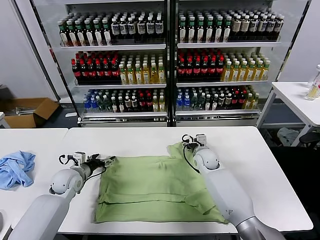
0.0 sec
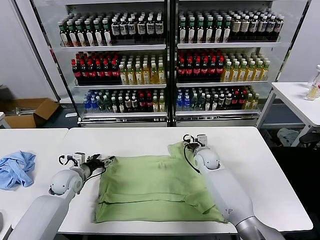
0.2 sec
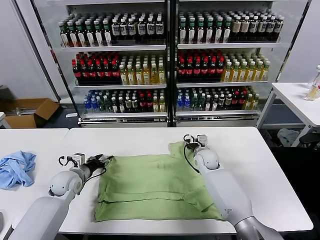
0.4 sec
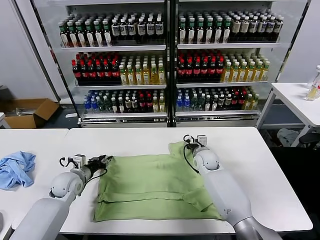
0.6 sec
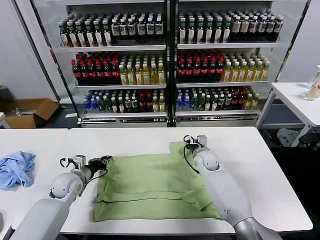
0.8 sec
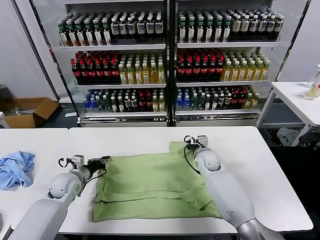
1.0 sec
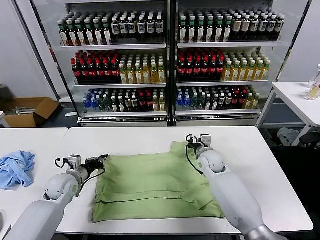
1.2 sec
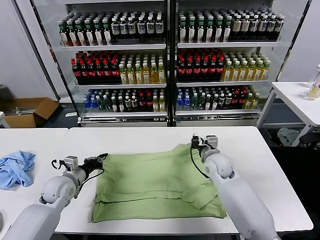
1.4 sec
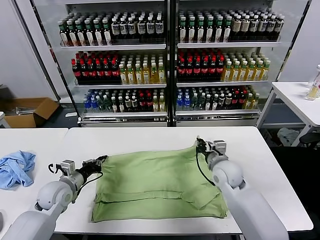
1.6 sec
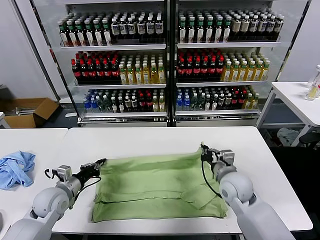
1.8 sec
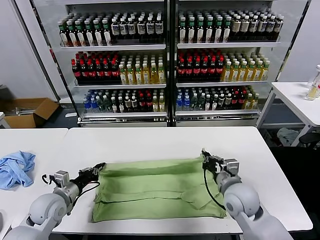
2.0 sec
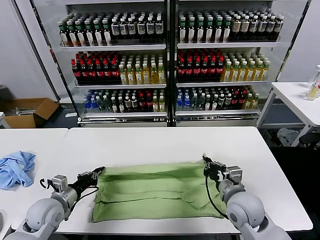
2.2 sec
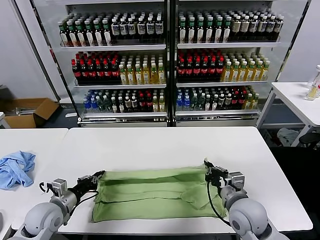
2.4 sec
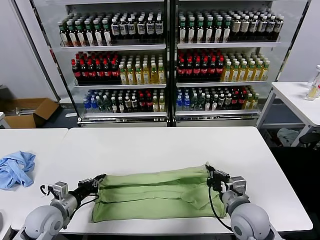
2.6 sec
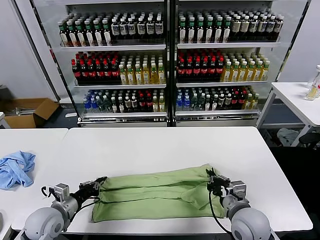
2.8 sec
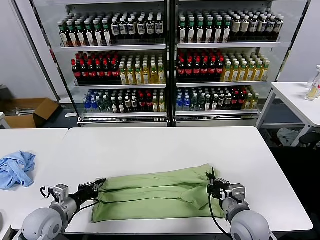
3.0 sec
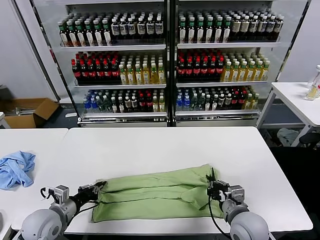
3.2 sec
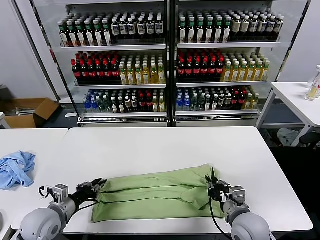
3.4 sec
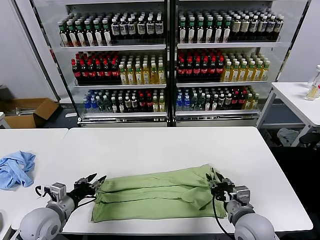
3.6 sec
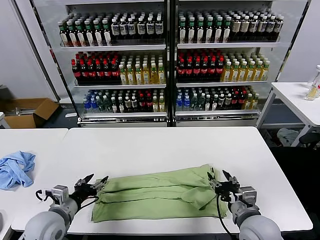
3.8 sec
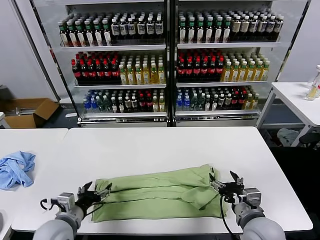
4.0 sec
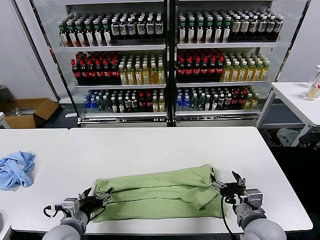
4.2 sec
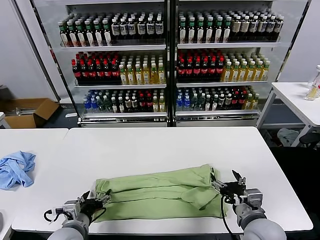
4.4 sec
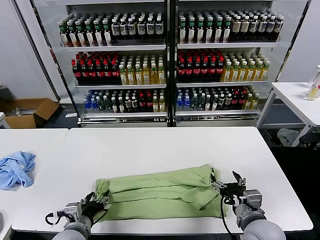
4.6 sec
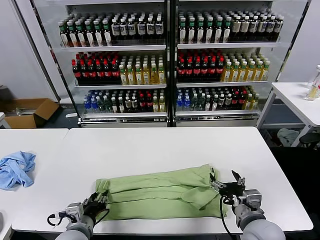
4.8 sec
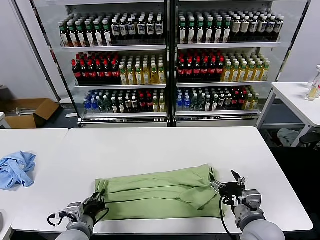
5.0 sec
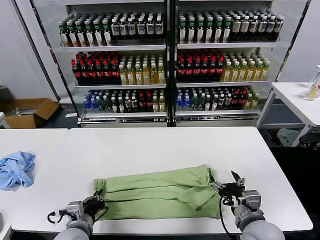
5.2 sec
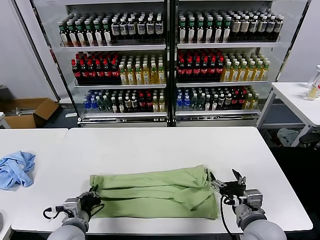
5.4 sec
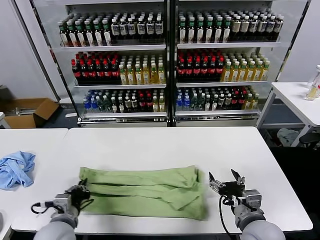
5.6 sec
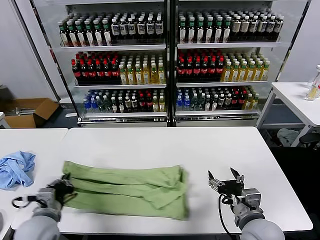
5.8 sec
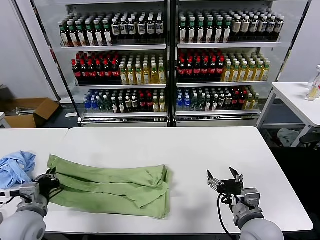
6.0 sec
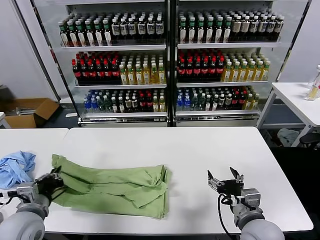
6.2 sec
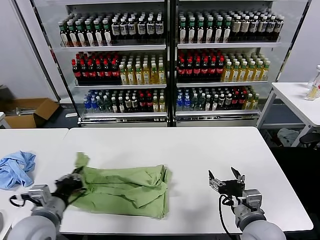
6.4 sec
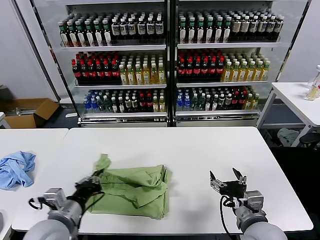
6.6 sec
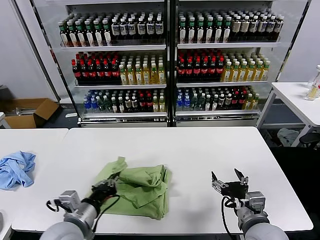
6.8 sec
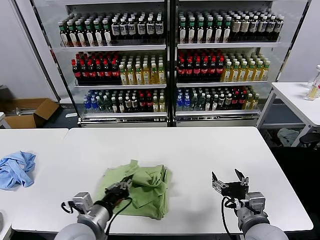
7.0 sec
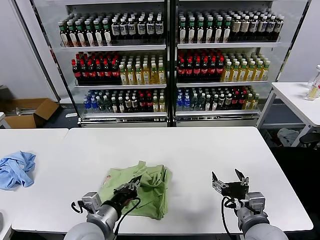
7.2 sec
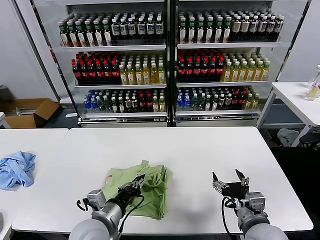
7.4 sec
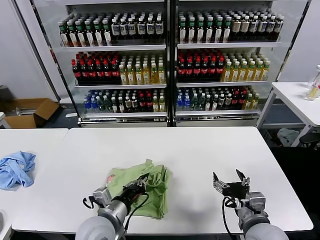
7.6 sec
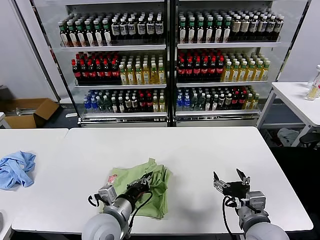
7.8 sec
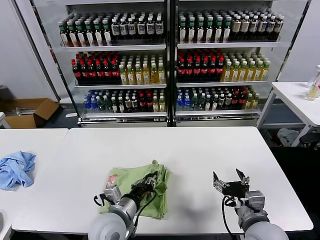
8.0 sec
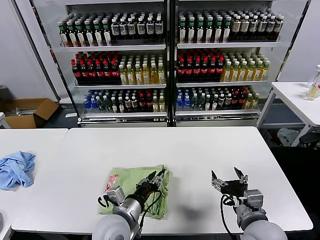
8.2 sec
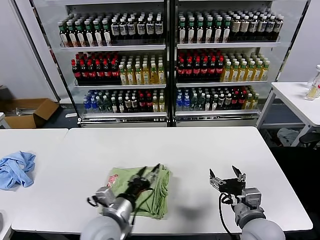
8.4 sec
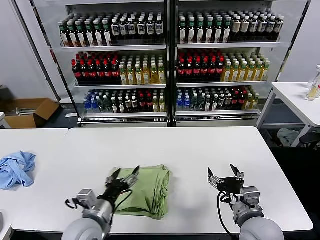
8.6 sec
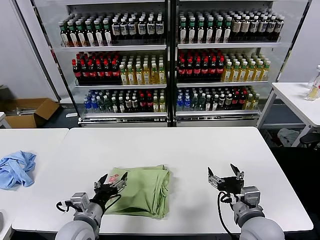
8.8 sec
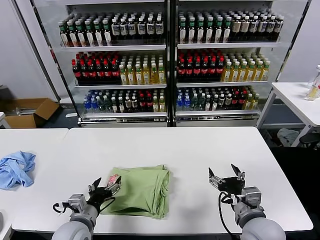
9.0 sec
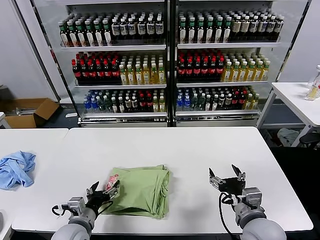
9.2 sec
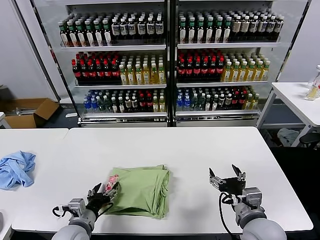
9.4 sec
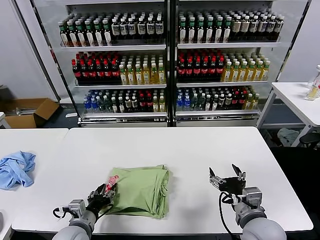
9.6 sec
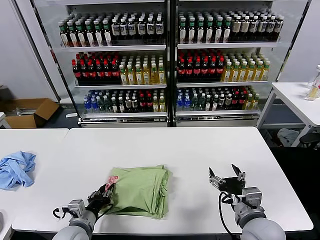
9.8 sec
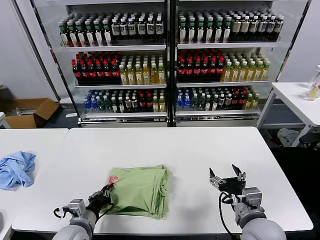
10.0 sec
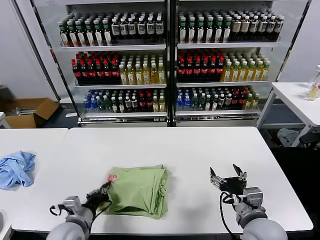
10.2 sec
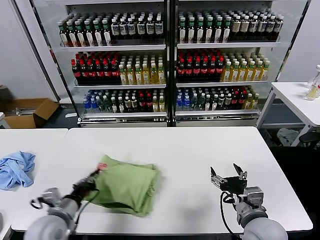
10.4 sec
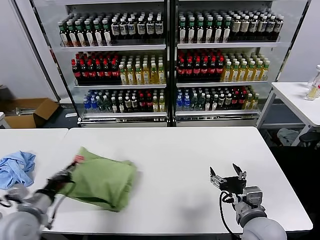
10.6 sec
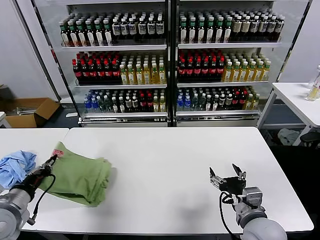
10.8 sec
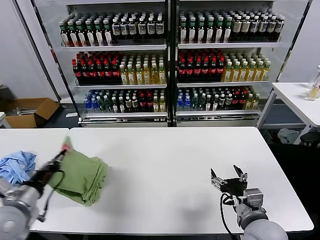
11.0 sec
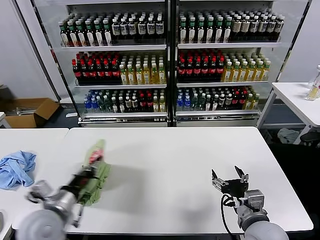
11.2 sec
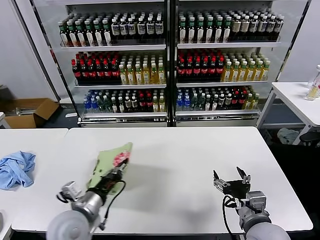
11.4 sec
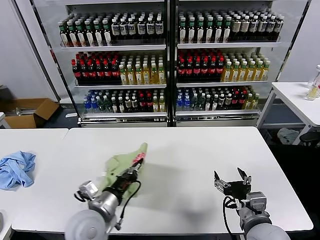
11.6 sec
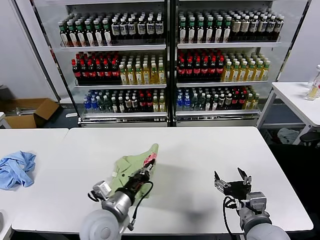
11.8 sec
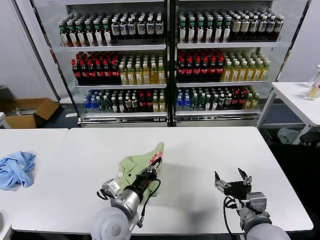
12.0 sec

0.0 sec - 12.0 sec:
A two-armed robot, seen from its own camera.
Task of the whole recording: fold and organize the clothes.
Step, 1.2 sec - 3.6 sec: use both grippers to drag the upper edge of the fabric backward and fold it over the lower edge.
Step, 3.8 sec - 5.0 sec: use the left gripper to clamp the left edge of the fabric.
Step, 5.4 sec - 8.2 sec: use the left gripper to drag the left edge of the fabric to the left and folds it over the right edge.
0.0 sec - 1.6 sec: The right gripper heads backward and upward, covering approximately 15 cm, and closes; the left gripper travels backward by about 5 cm, and closes its fingers.
1.6 sec - 3.0 sec: The right gripper travels backward by some 15 cm. The left gripper moves backward, about 10 cm.
3.0 sec - 4.4 sec: The left gripper heads to the right and backward, covering roughly 10 cm, and opens, while the right gripper opens its fingers.
4.4 sec - 6.0 sec: The left gripper is displaced to the left and upward by about 10 cm, and closes up.
6.0 sec - 7.6 sec: The left gripper goes about 20 cm to the right.
7.6 sec - 9.0 sec: The left gripper shifts some 10 cm to the left and downward, and opens up.
9.0 sec - 10.4 sec: The left gripper moves to the left, approximately 5 cm, and closes its fingers.
10.4 sec - 12.0 sec: The left gripper goes some 15 cm to the right.

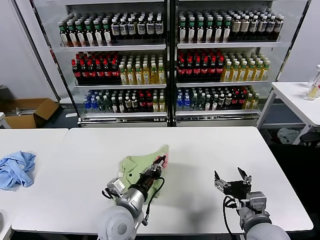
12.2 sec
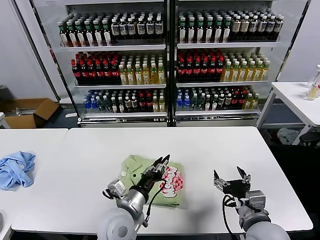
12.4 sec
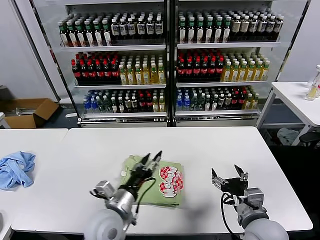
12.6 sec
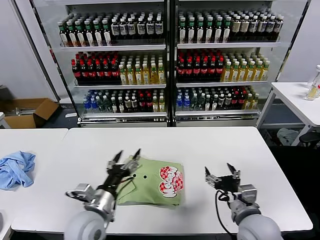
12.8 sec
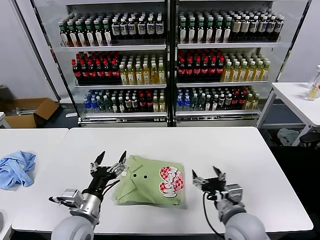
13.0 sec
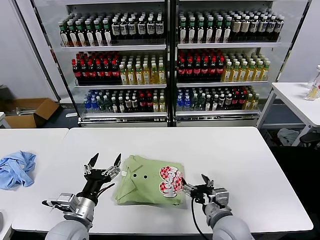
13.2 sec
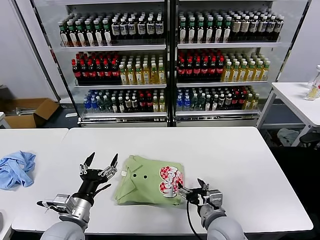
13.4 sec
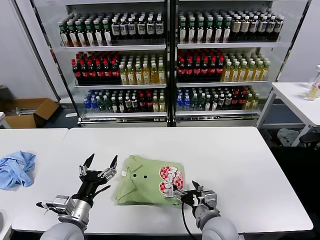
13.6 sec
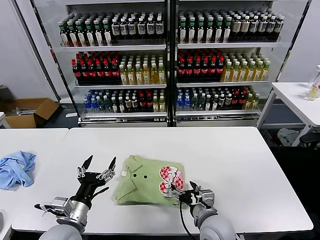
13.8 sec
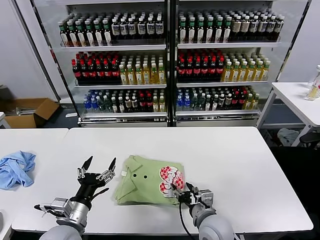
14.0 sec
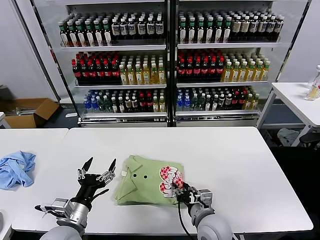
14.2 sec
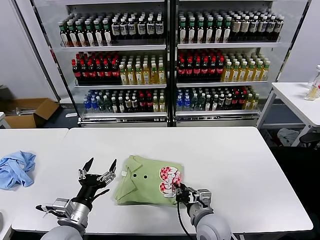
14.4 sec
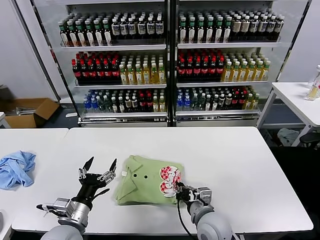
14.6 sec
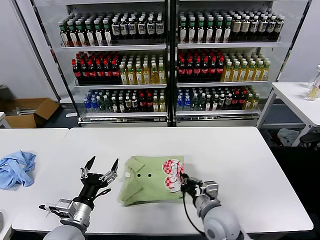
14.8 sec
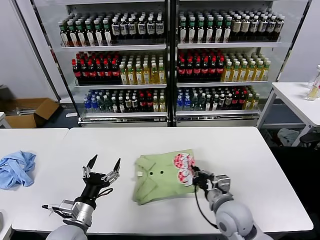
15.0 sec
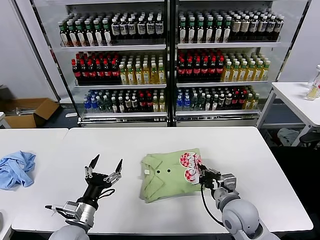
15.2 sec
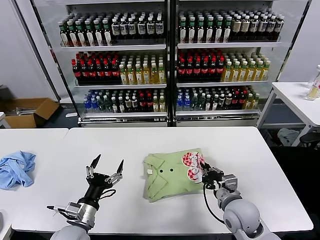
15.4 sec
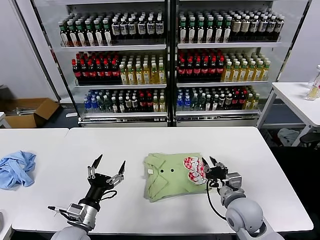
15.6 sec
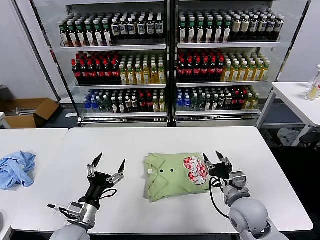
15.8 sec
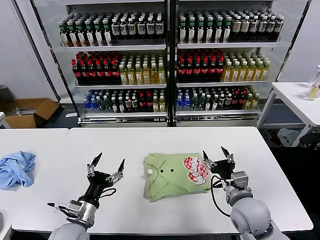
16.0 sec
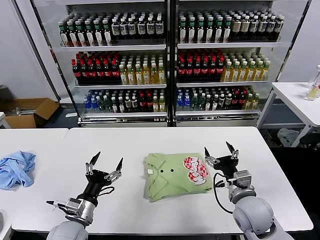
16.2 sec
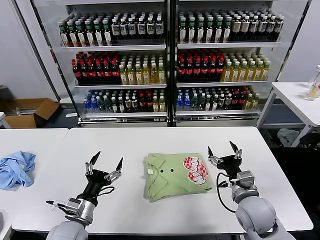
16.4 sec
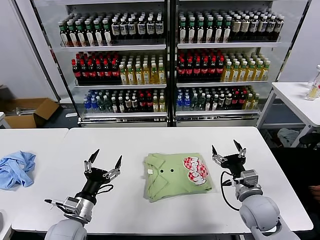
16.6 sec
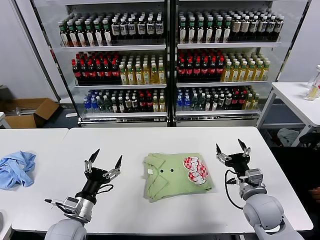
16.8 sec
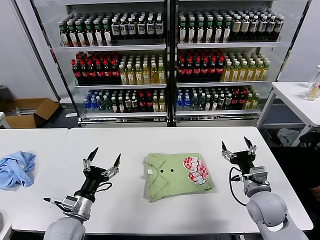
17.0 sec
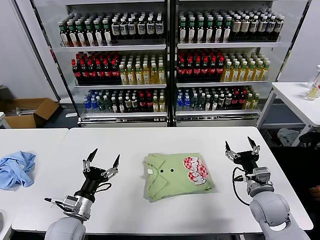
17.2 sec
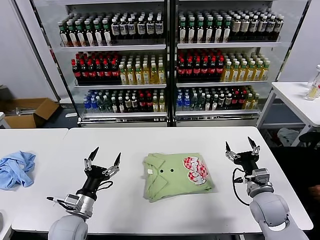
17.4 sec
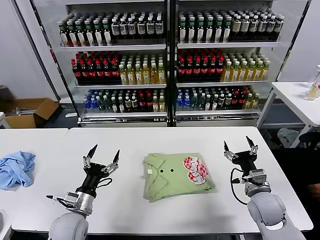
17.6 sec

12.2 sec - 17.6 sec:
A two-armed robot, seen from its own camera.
Task of the whole recording: fold and organize the clothes.
Step, 12.6 sec - 15.6 sec: Drag the clothes to the center of the table.
12.2 sec - 13.6 sec: The right gripper heads to the left and downward, covering roughly 10 cm; the left gripper travels to the left by some 15 cm, and opens.
13.6 sec - 15.0 sec: The right gripper shifts by approximately 5 cm, and closes.
15.0 sec - 16.2 sec: The right gripper goes about 5 cm to the right, and opens its fingers.
16.2 sec - 17.6 sec: The right gripper shifts roughly 5 cm to the right.

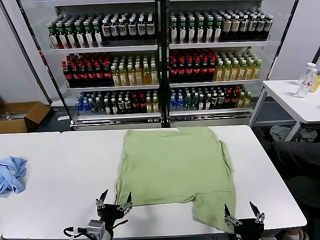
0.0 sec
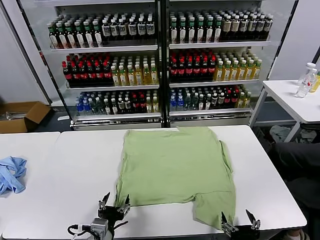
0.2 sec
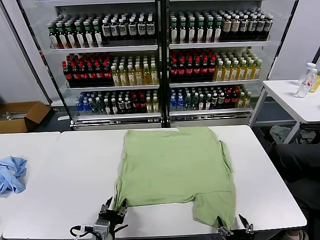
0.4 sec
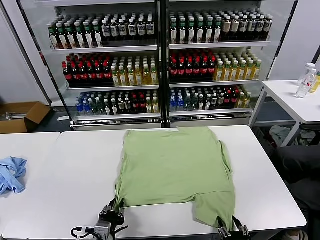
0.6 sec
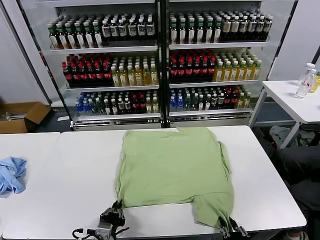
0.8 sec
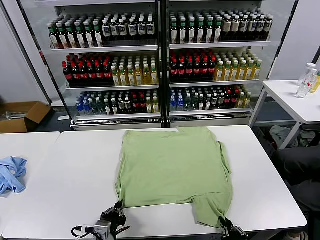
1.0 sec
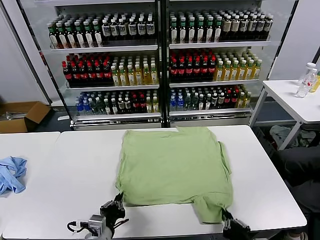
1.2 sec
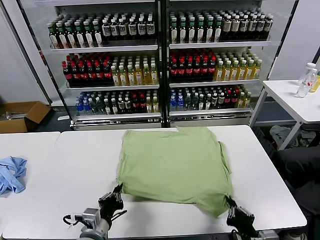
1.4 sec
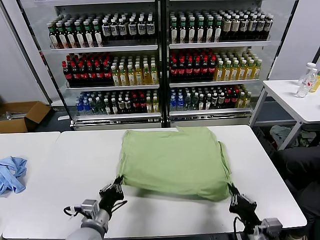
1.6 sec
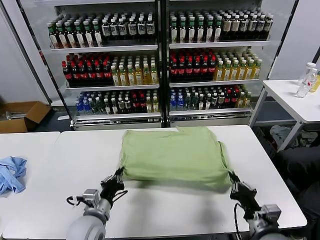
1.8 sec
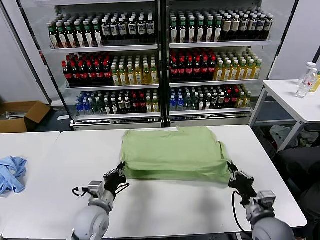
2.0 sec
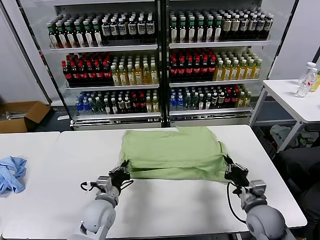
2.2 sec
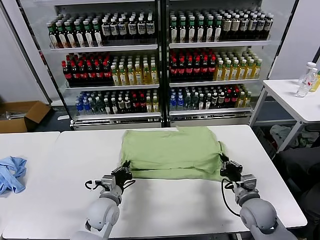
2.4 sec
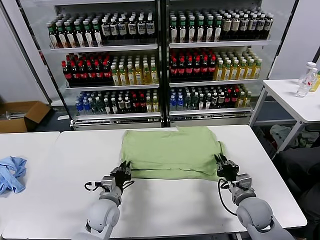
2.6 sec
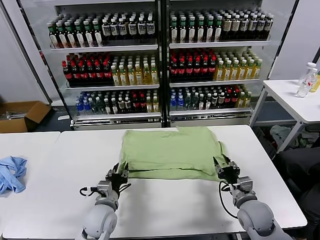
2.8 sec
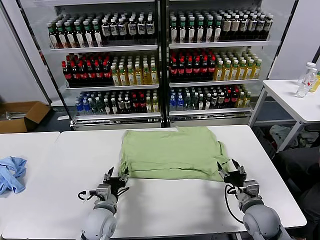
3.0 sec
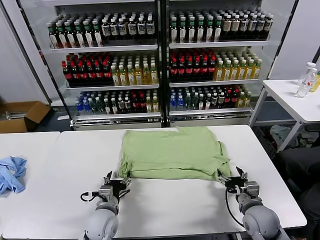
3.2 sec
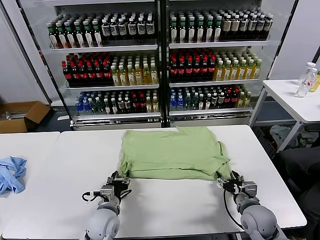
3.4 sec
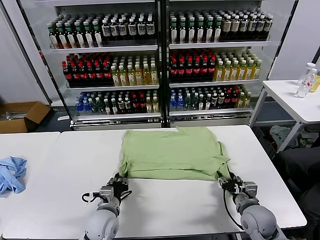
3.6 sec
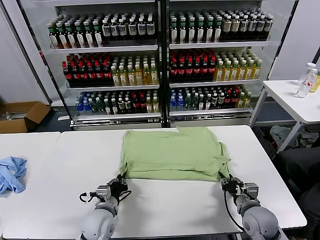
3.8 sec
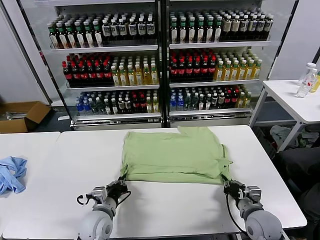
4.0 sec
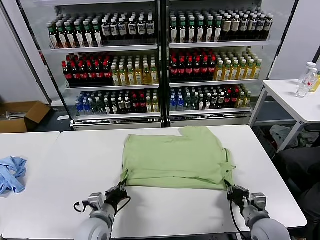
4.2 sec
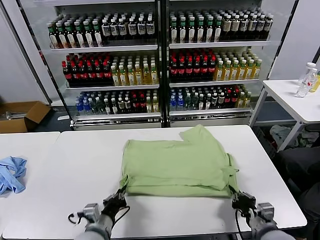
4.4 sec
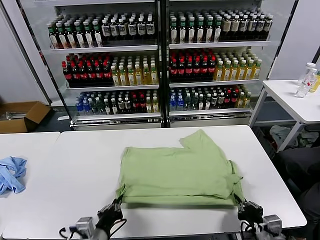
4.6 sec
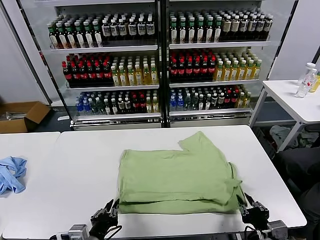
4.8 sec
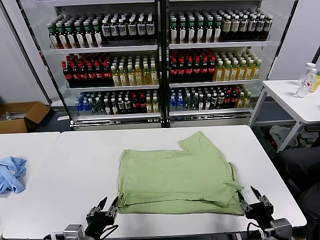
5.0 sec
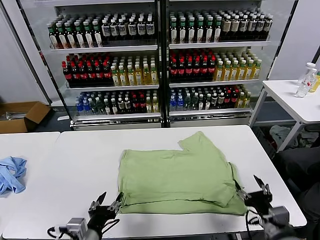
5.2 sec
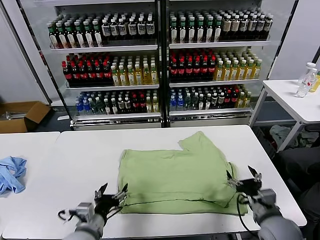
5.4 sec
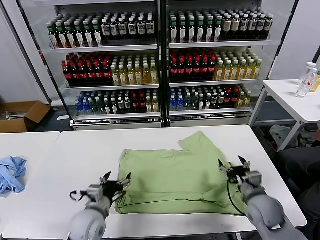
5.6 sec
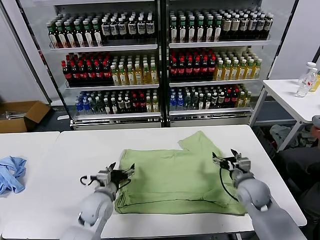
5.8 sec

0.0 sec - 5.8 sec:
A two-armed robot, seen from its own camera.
Task of the whole recording: fold and organize the clothes.
Step, 0.0 sec - 1.0 sec: use both grippers simultaneously to clamp the lower edge of the clothing fabric.
Step, 1.2 sec - 2.6 sec: use both grippers to drag the lower edge of the fabric forward and fold it over the upper edge.
Step, 3.0 sec - 4.8 sec: Drag the clothes downward with both gripper.
1.4 sec - 2.8 sec: The grippers both shift forward by about 10 cm. The right gripper opens up. Meanwhile the left gripper opens up.
2.8 sec - 4.4 sec: The grippers both shift backward by roughly 10 cm. The right gripper closes its fingers. The left gripper closes up.
4.4 sec - 5.8 sec: The right gripper heads forward, covering about 20 cm, and opens its fingers, while the left gripper heads forward, covering approximately 10 cm, and opens its fingers.
